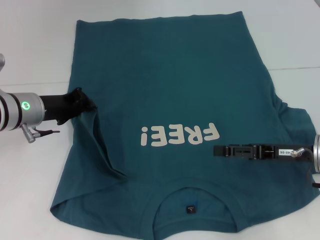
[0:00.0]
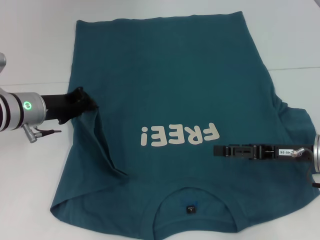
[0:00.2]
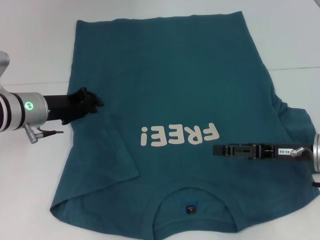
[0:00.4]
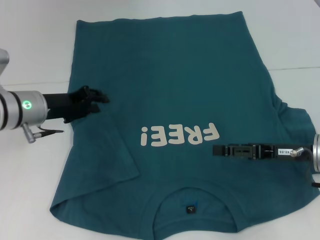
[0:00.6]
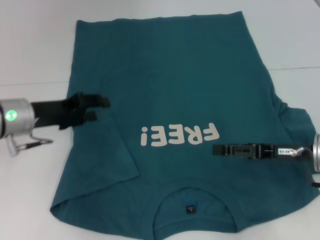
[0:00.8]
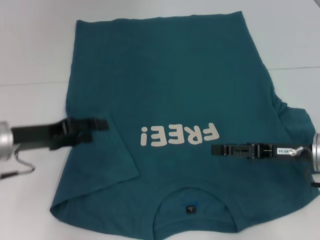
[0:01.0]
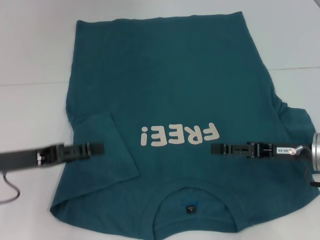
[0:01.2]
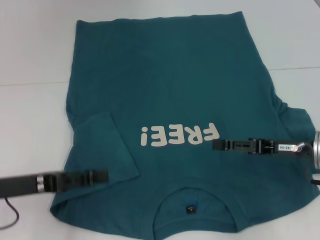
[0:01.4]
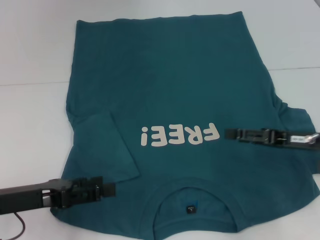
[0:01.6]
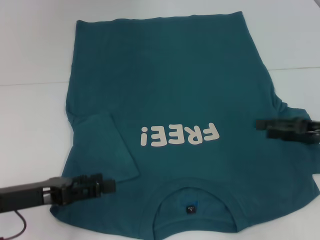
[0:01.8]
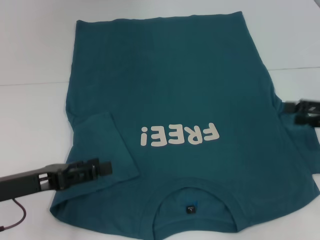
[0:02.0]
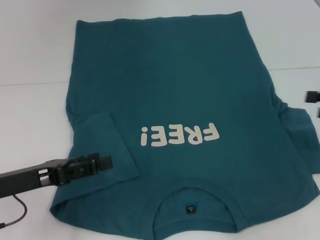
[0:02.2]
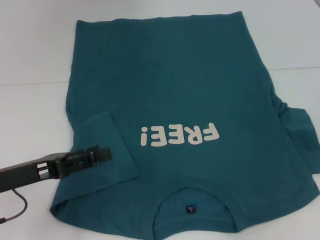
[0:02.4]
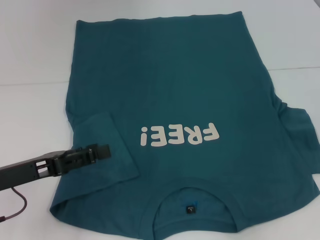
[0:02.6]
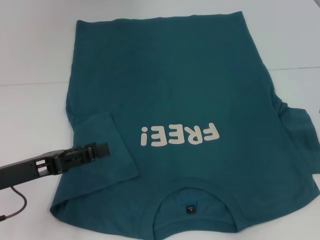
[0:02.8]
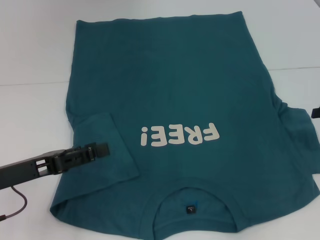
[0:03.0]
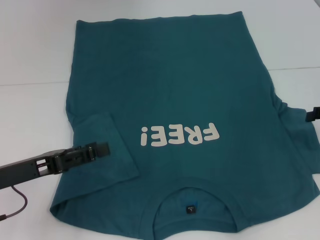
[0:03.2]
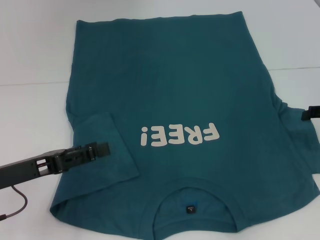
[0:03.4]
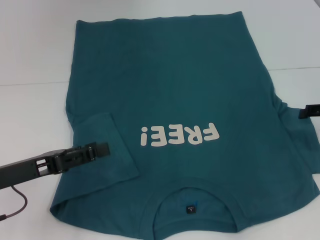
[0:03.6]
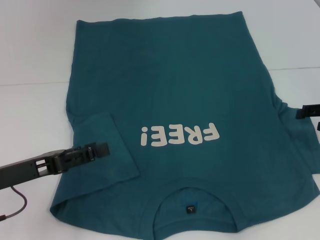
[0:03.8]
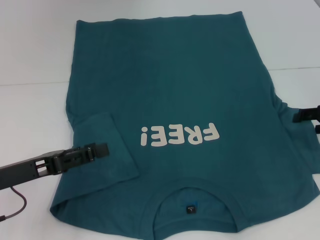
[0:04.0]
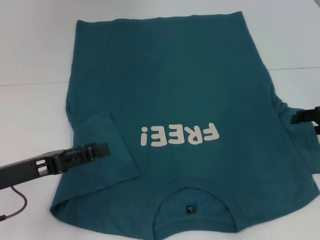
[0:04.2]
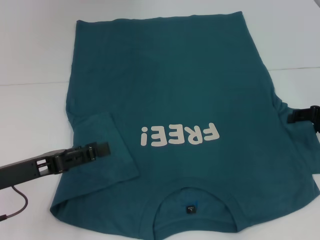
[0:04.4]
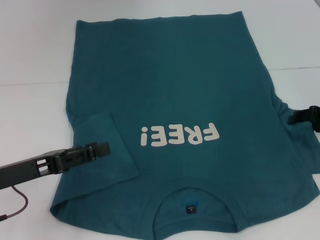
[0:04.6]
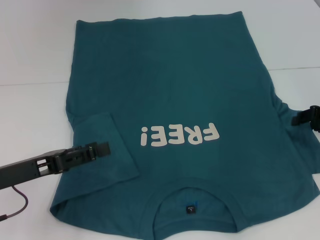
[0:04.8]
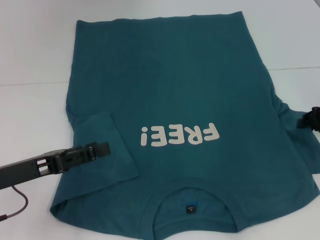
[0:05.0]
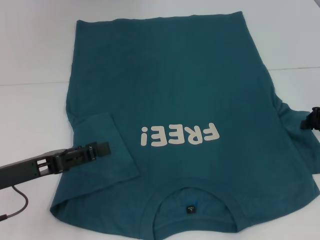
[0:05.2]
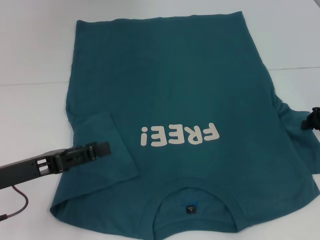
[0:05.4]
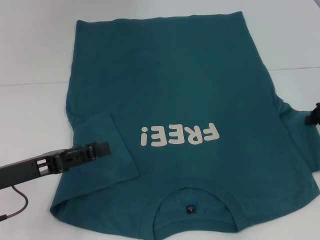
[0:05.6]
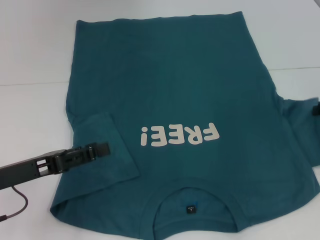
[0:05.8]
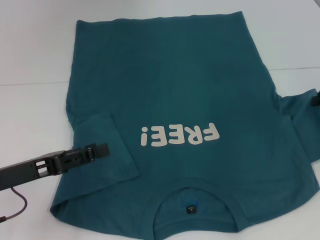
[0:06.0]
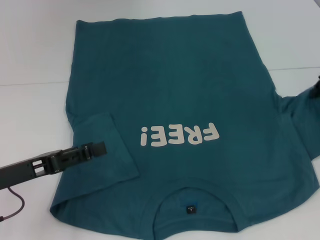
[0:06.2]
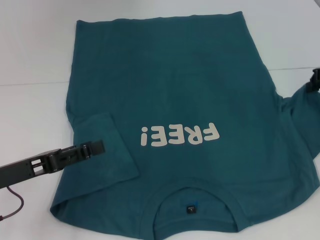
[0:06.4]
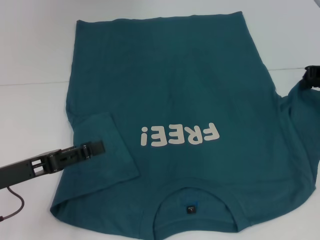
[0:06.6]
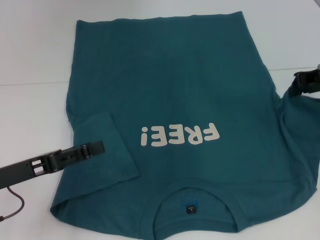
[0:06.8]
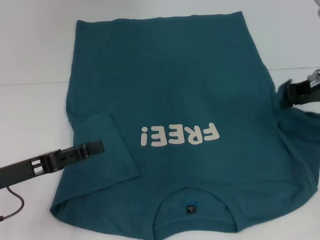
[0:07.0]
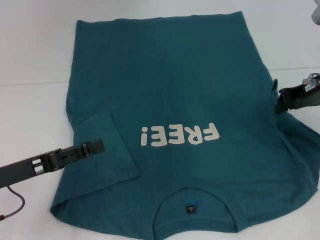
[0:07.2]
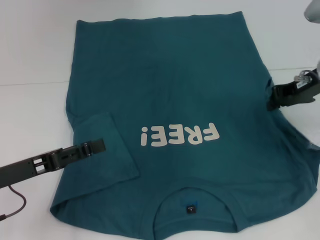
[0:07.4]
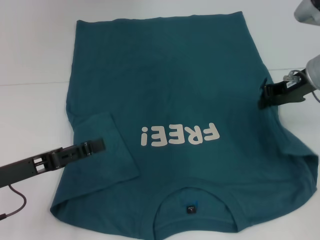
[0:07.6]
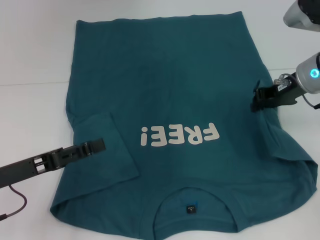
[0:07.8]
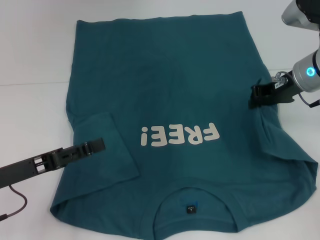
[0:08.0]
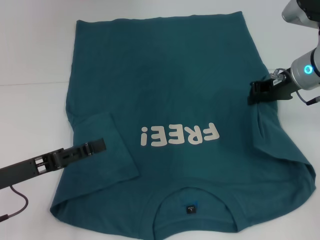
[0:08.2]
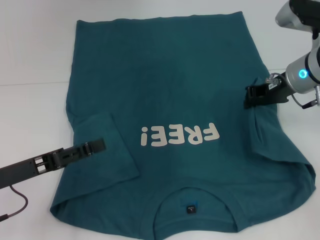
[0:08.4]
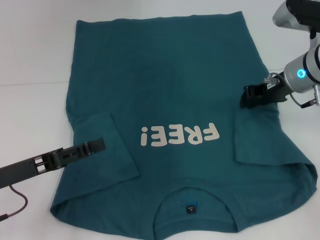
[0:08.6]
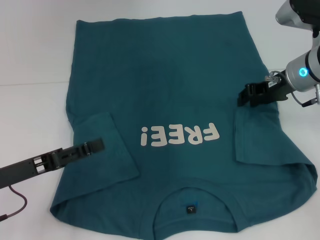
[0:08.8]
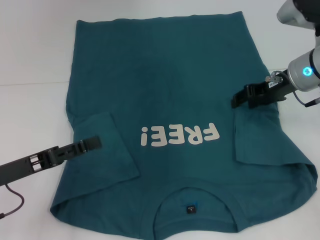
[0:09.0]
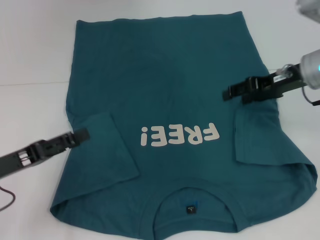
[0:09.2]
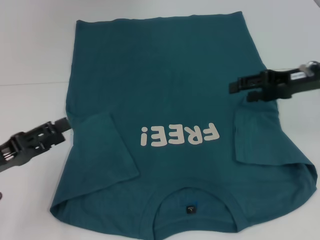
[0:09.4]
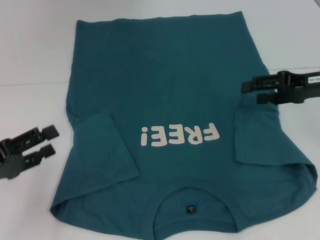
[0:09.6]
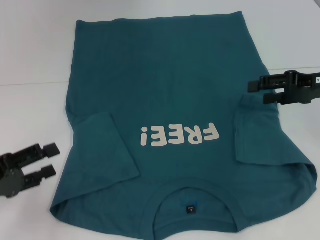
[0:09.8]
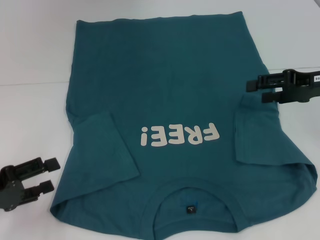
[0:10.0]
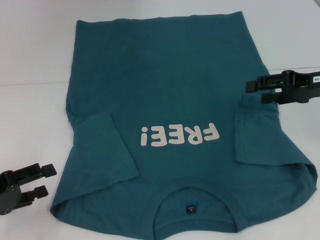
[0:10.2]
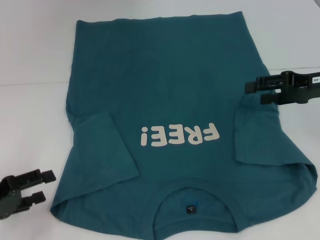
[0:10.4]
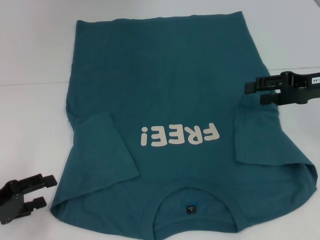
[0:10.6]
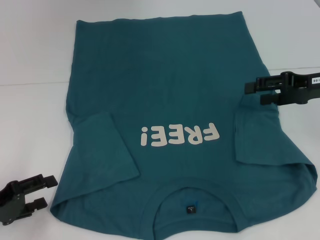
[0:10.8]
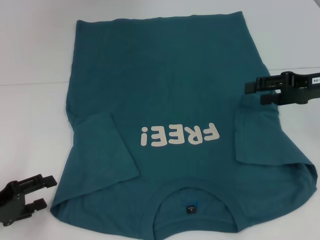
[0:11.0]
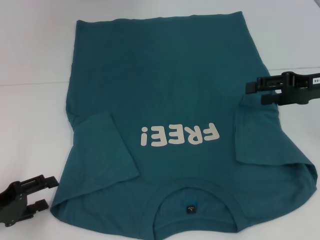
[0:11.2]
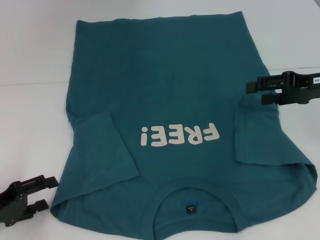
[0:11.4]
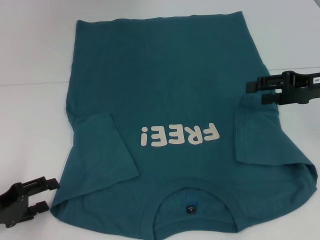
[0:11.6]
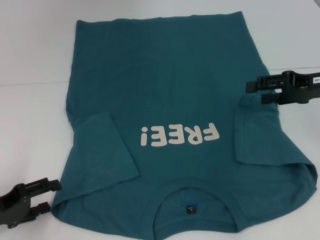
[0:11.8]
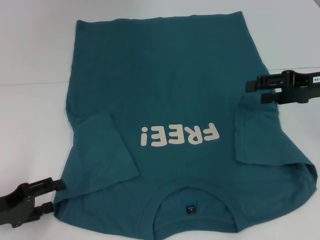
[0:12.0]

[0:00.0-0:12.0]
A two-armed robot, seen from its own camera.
Step, 0:00.6 to 0:08.8: Fold the bottom right sleeve to the right.
0:00.0 to 0:01.6: The left gripper shifts approximately 15 cm backward, and opens.
0:01.6 to 0:03.0: The right gripper travels to the right by approximately 10 cm.
0:04.4 to 0:06.0: The right gripper closes its fingers.
0:06.0 to 0:07.6: The right gripper shifts roughly 10 cm to the left.
0:07.6 to 0:09.0: The grippers stay close to where they were, moving slightly.
0:09.0 to 0:10.4: The right gripper goes about 10 cm to the right and backward, and opens up. The left gripper moves to the left, roughly 5 cm.
0:10.4 to 0:12.0: The grippers make only small movements.

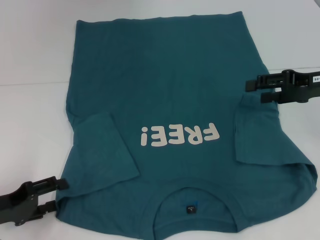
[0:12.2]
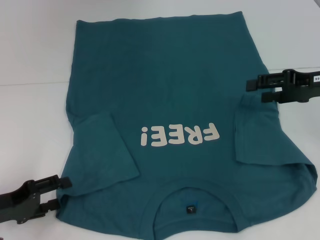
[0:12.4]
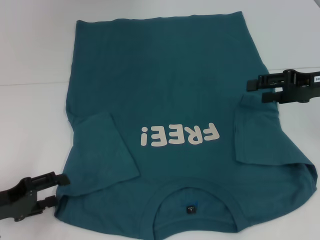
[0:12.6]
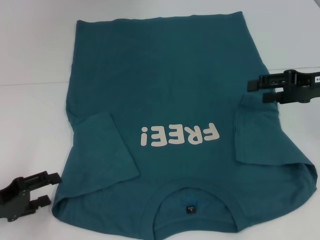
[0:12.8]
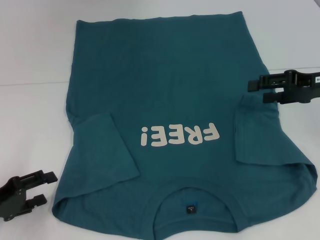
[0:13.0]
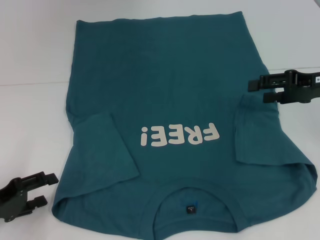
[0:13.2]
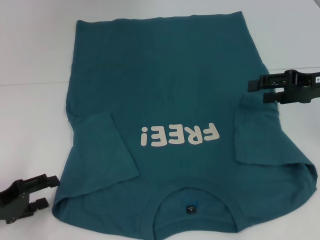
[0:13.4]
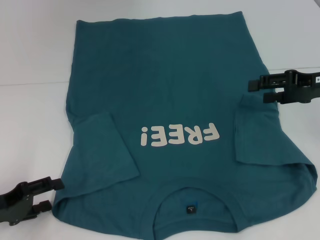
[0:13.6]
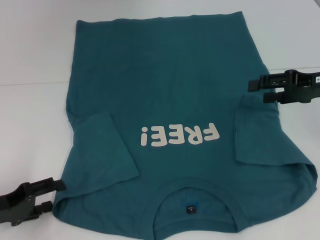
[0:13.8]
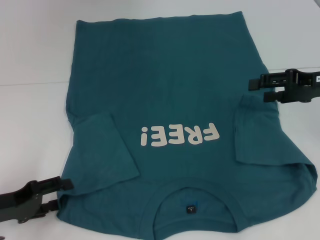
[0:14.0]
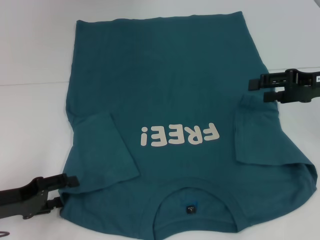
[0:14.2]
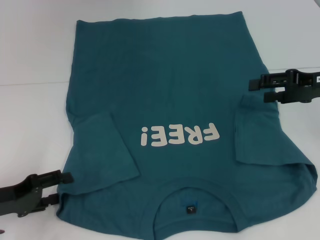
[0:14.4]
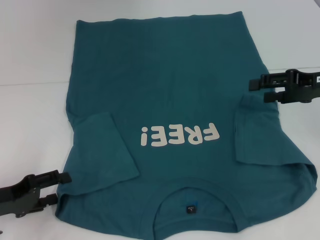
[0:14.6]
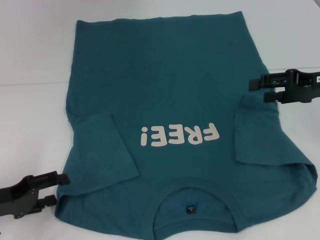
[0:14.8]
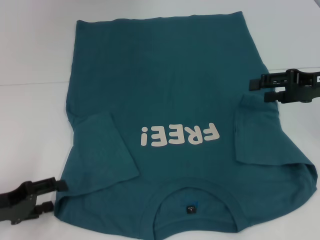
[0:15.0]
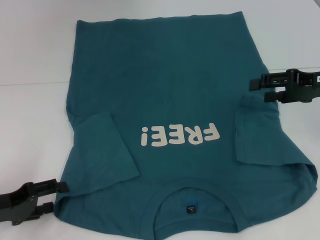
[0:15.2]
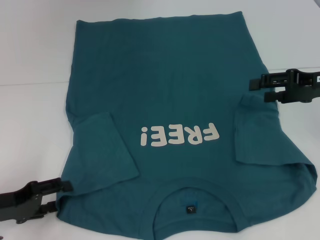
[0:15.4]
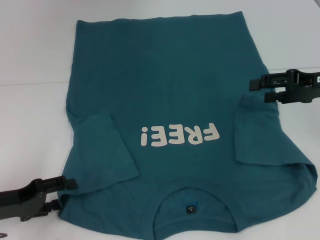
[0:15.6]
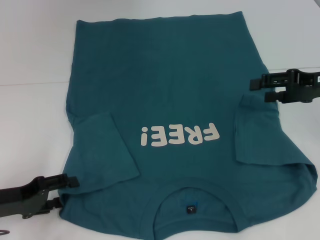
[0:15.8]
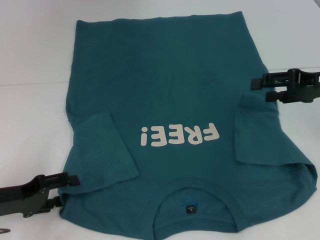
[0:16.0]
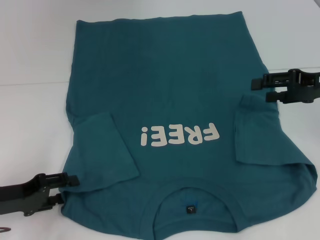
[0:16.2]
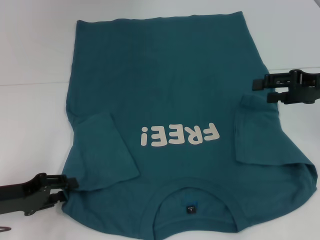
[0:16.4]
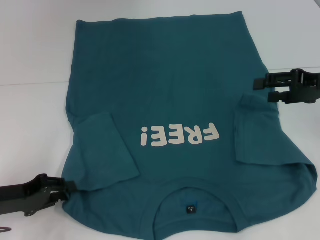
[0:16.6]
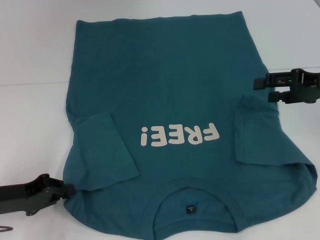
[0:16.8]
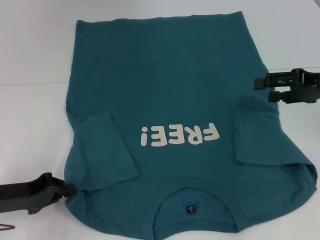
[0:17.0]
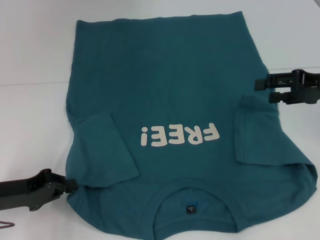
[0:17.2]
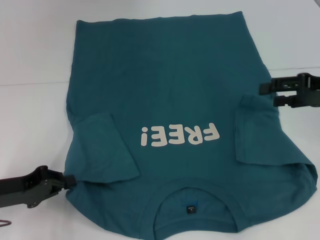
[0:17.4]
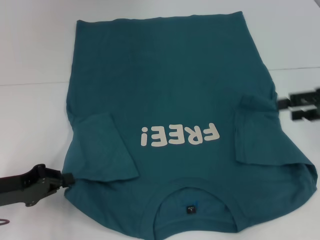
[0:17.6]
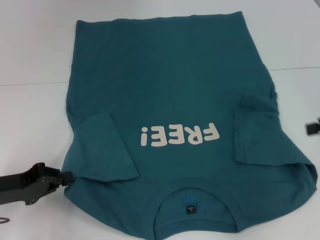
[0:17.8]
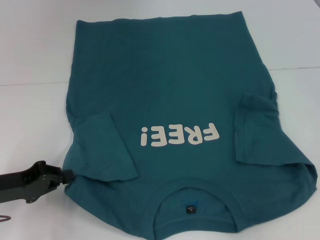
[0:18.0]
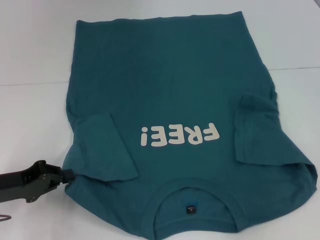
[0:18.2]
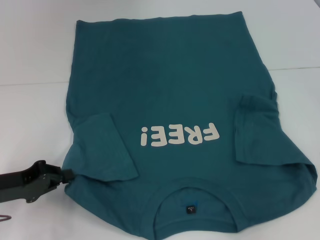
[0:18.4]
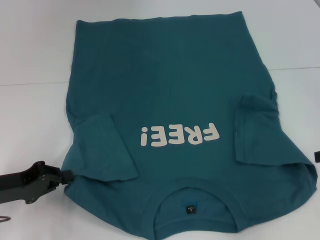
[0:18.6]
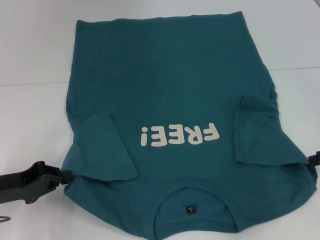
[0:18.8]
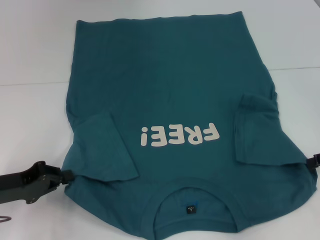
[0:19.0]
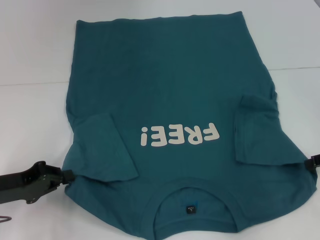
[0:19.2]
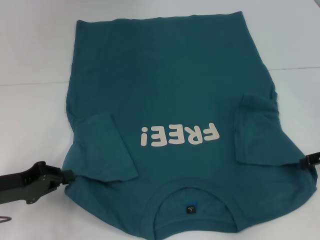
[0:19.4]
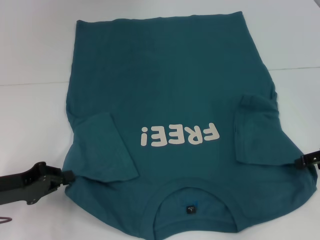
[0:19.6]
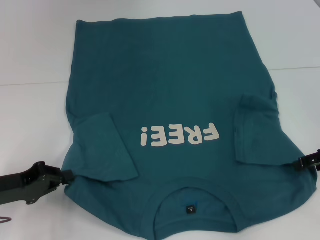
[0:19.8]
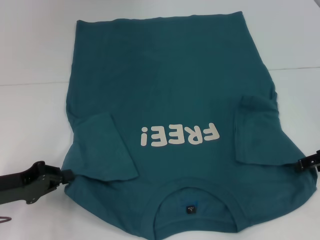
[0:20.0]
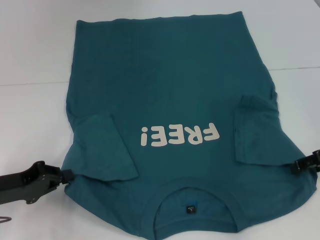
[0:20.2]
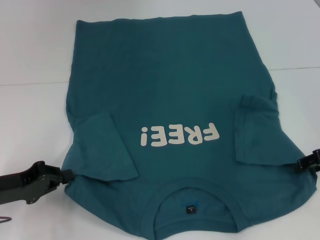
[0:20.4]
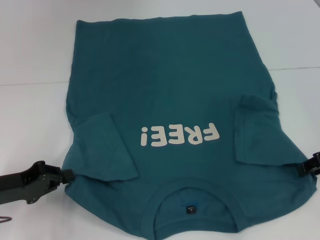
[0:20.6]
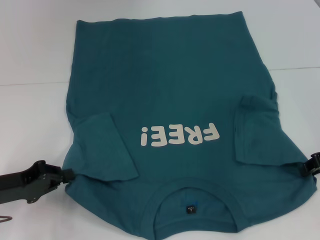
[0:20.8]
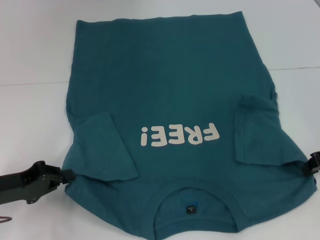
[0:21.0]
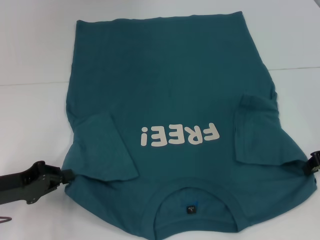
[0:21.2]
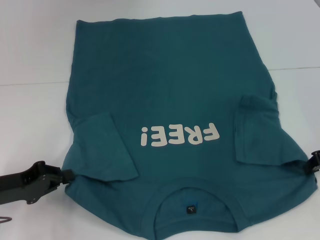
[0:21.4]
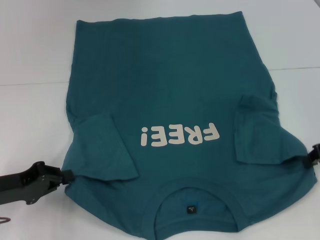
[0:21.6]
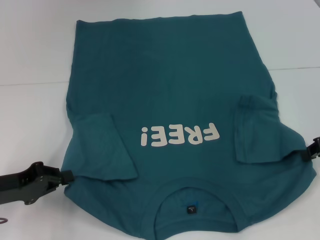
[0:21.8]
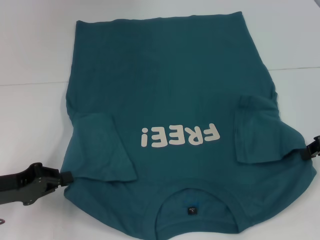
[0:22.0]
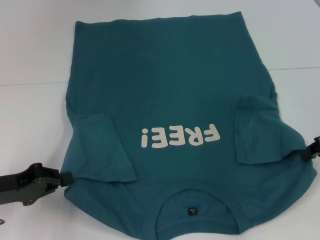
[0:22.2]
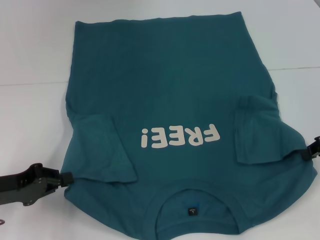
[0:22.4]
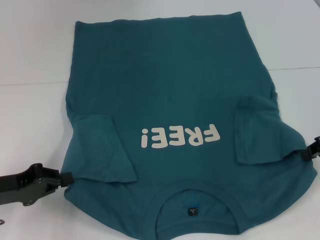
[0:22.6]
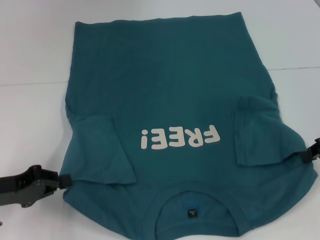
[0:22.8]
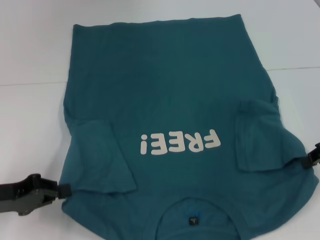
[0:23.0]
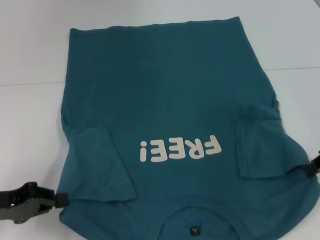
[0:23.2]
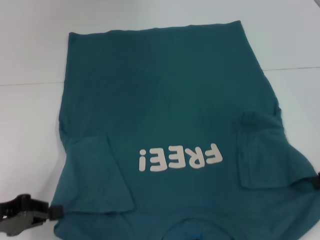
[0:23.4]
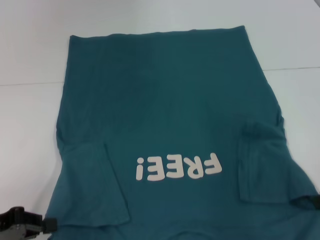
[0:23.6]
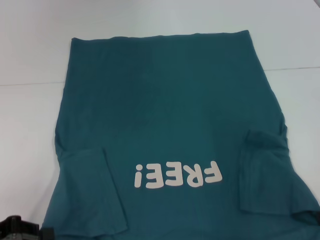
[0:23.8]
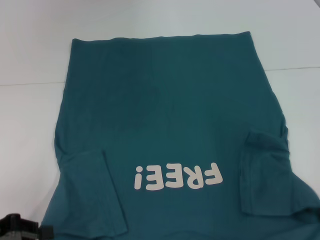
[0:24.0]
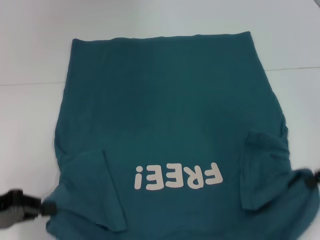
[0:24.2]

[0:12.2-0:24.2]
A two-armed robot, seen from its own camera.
Step, 0:12.2 to 0:17.6: Grab the bottom left corner with your left hand.
Step, 0:17.8 to 0:21.6: Grab the bottom right corner with your right hand.
0:12.2 to 0:13.8: Both grippers stay put.
0:15.2 to 0:16.6: The left gripper closes its fingers.
0:16.6 to 0:18.2: The right gripper moves to the right and backward, about 10 cm, while the left gripper closes its fingers.
0:19.8 to 0:21.2: The right gripper closes.
0:21.2 to 0:22.6: The grippers make only small movements.
